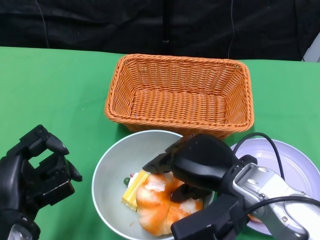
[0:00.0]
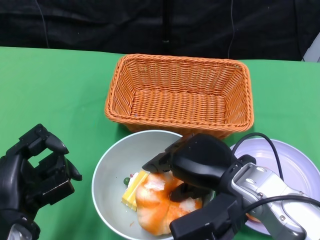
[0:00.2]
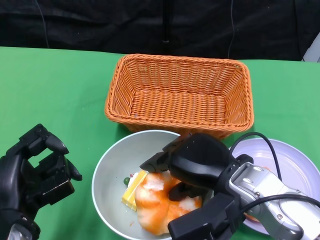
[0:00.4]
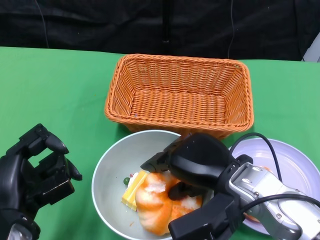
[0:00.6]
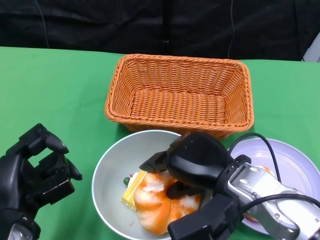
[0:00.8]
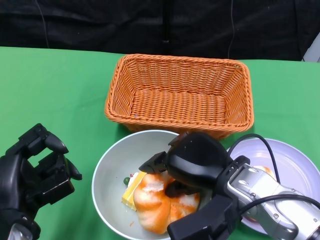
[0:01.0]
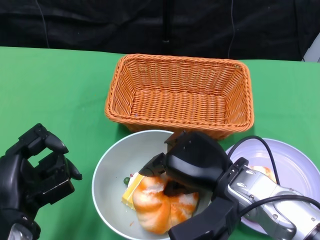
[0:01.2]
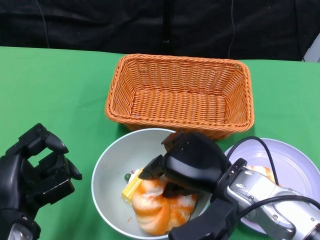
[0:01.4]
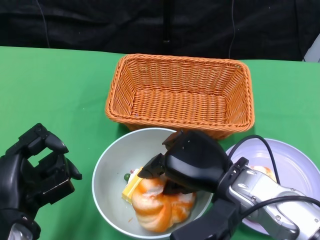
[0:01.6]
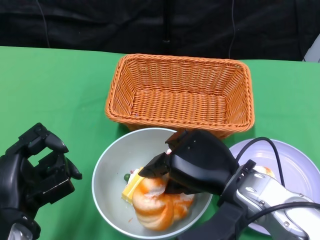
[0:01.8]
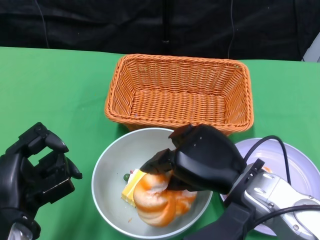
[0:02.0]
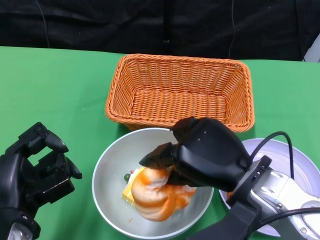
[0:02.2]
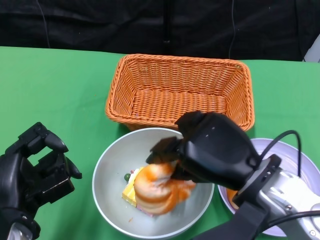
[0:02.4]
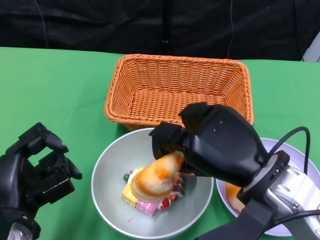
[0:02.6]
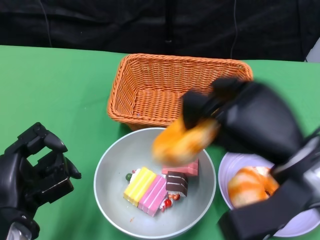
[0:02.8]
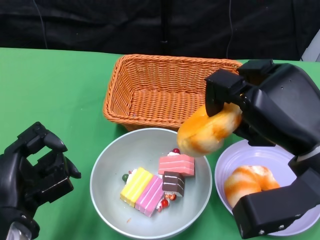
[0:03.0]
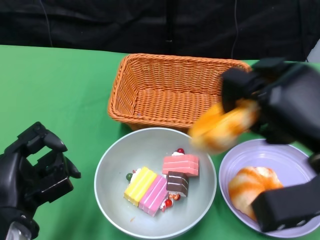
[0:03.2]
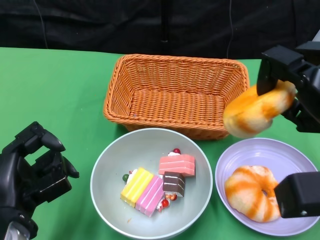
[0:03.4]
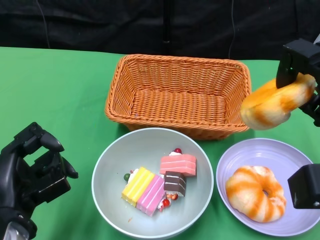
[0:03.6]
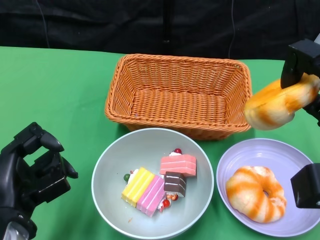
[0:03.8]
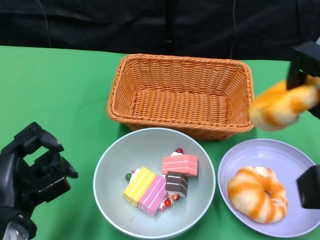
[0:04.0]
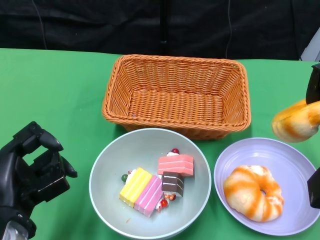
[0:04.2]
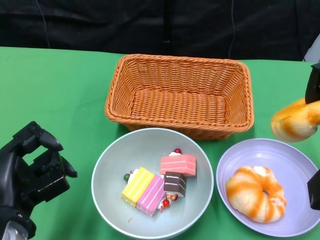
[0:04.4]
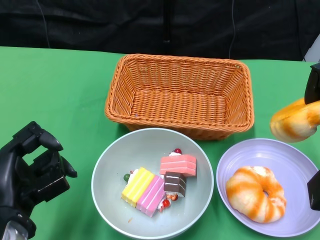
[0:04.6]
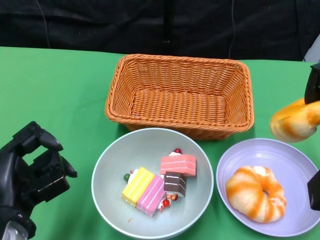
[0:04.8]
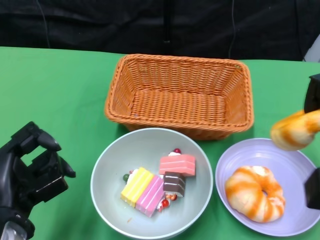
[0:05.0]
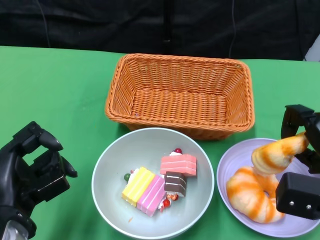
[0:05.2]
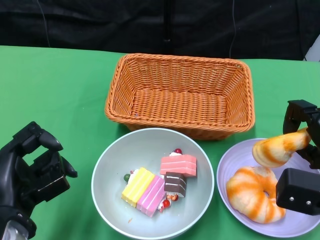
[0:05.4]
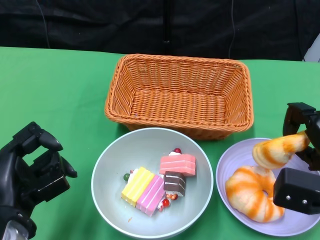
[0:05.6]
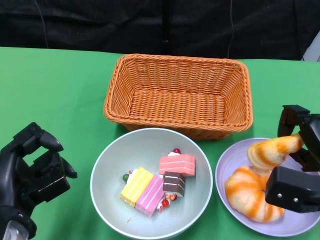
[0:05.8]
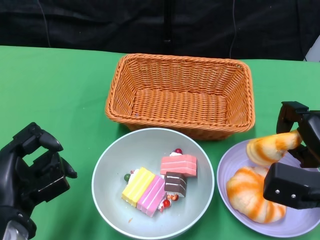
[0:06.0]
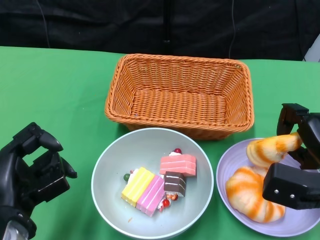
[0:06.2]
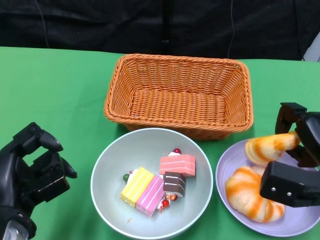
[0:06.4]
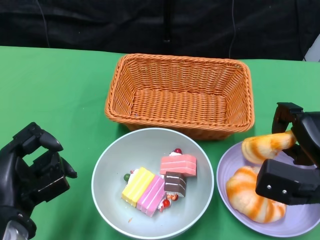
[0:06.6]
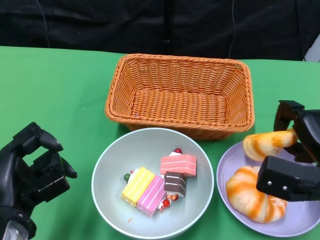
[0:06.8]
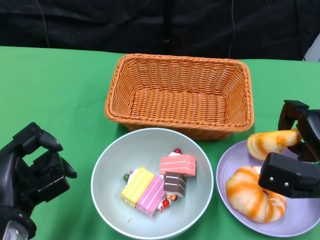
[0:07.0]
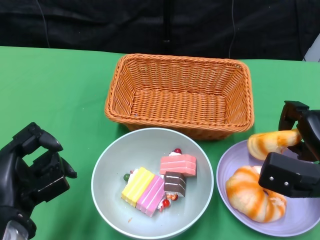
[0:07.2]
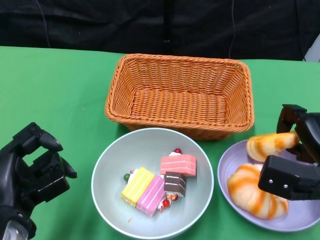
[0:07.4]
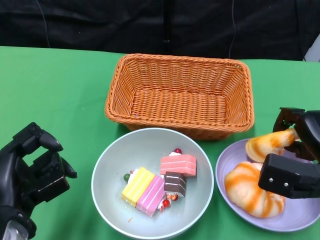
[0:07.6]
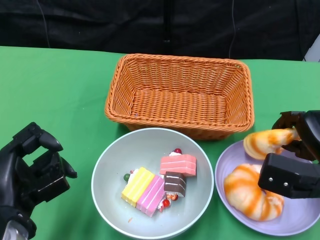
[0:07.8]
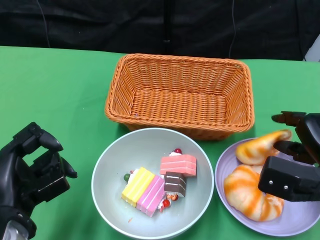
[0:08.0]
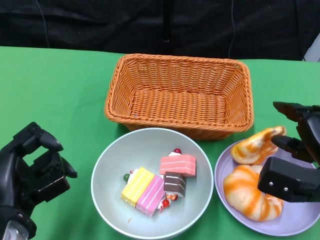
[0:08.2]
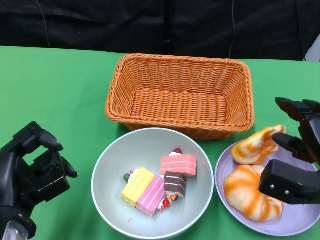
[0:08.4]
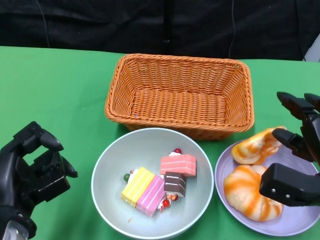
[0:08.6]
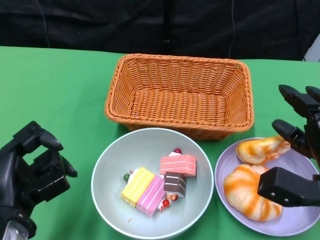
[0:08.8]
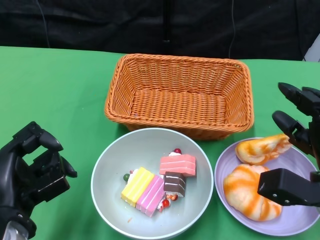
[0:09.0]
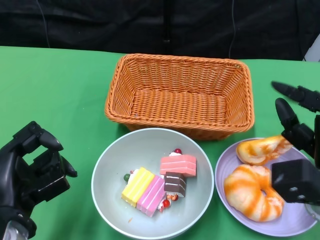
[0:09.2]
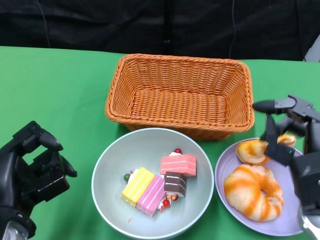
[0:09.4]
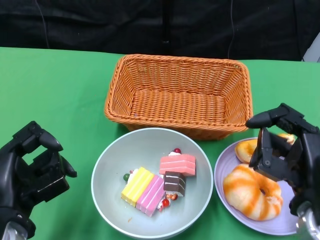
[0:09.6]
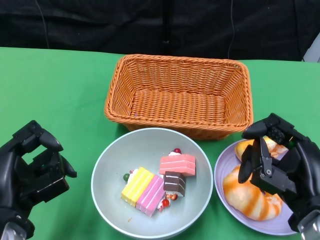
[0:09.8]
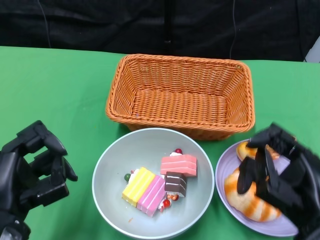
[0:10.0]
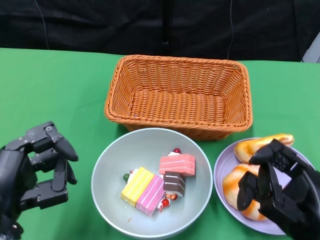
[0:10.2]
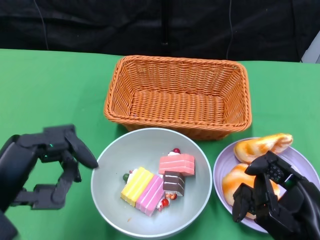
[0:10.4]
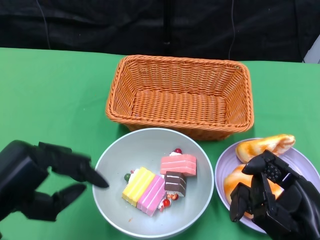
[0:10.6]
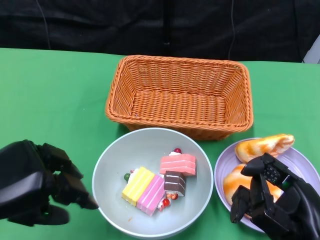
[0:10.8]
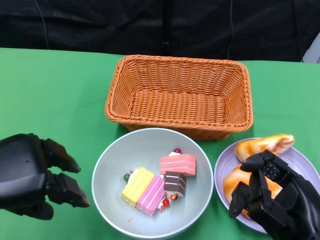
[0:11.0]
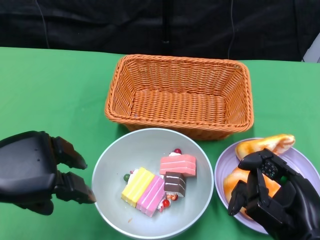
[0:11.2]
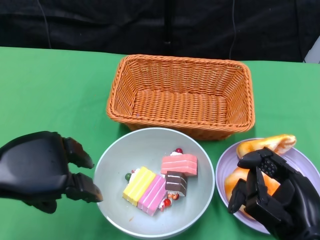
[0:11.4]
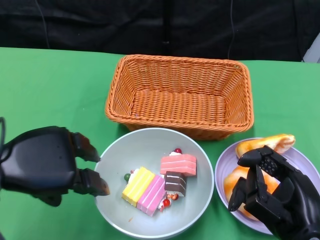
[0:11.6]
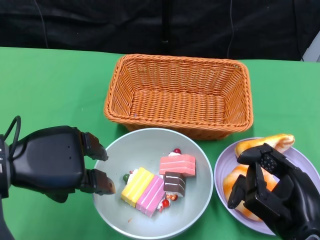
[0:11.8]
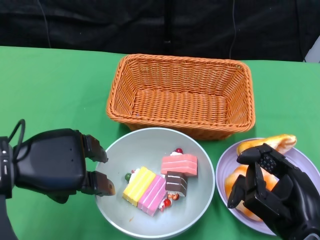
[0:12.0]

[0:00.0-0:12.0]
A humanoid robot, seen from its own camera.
Step, 0:00.0 to 0:08.8: Pick up the bread with the right gripper and place it on the plate.
0:00.0 to 0:01.6: The hands stay close to where they were, moving slightly.
0:01.6 to 0:03.0: The right hand travels to the right and upward by roughly 10 cm.
0:03.0 to 0:04.4: The right hand travels to the right by approximately 10 cm.
0:04.4 to 0:06.0: The right hand is displaced downward by approximately 10 cm.
0:06.0 to 0:07.6: The hands make only small movements.
0:09.0 to 0:10.4: The right hand heads backward, covering roughly 10 cm.
0:10.4 to 0:12.0: The left hand goes about 10 cm forward.

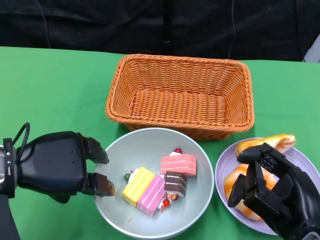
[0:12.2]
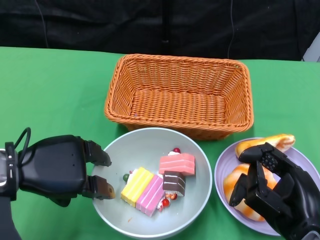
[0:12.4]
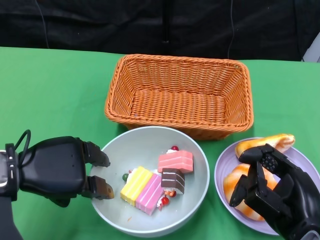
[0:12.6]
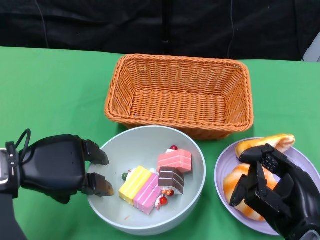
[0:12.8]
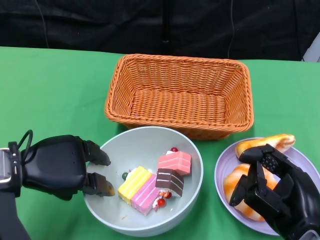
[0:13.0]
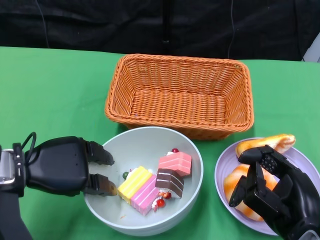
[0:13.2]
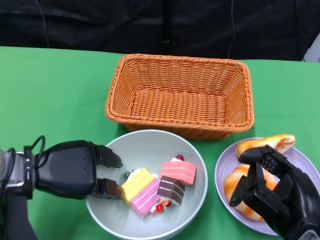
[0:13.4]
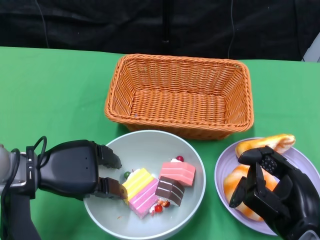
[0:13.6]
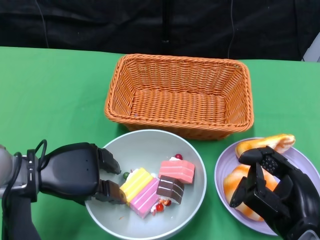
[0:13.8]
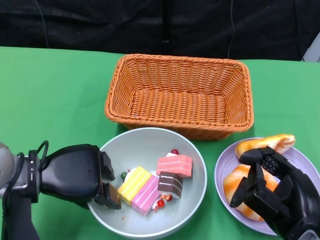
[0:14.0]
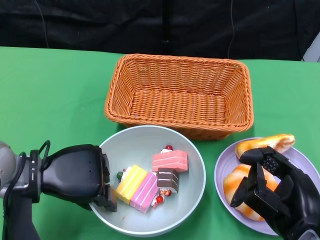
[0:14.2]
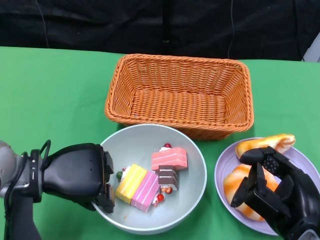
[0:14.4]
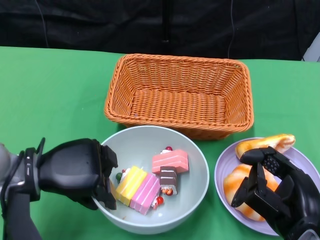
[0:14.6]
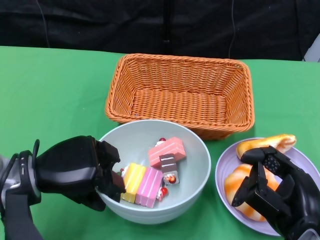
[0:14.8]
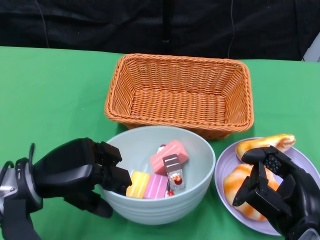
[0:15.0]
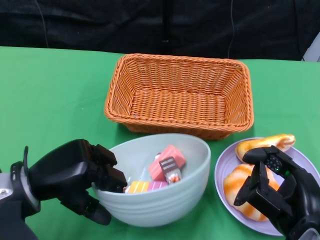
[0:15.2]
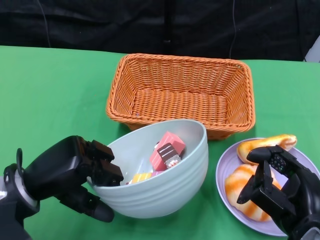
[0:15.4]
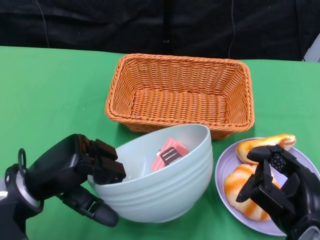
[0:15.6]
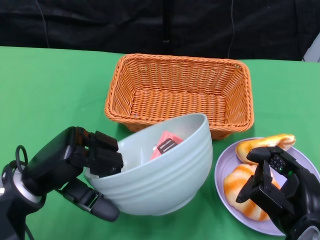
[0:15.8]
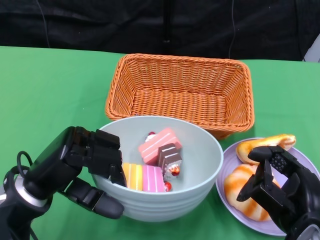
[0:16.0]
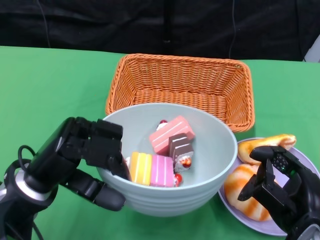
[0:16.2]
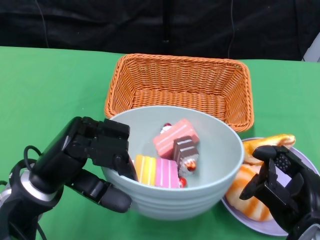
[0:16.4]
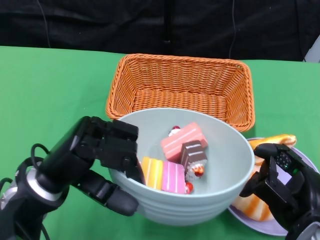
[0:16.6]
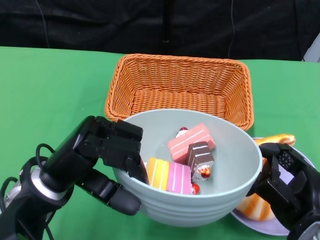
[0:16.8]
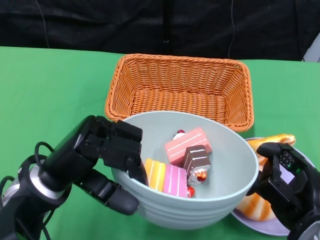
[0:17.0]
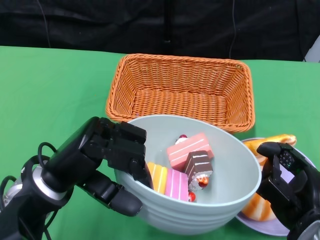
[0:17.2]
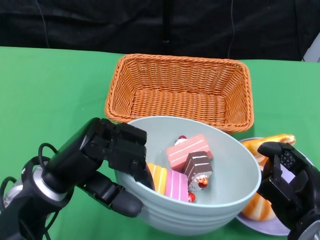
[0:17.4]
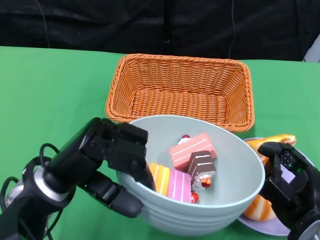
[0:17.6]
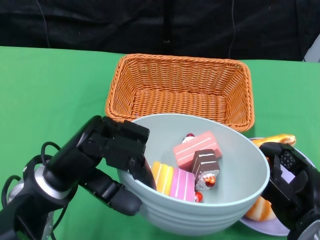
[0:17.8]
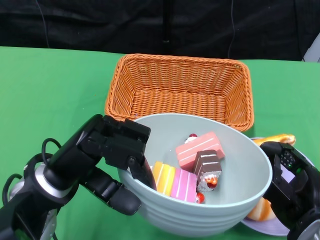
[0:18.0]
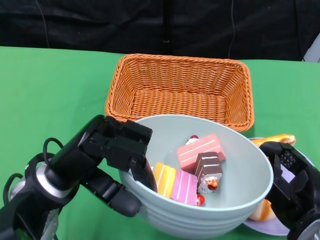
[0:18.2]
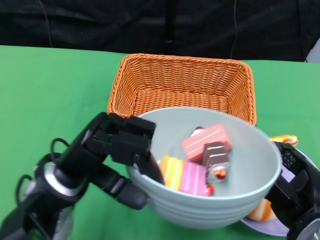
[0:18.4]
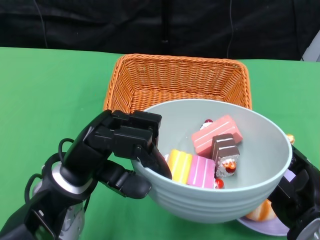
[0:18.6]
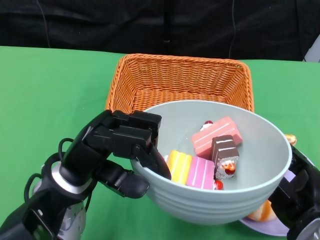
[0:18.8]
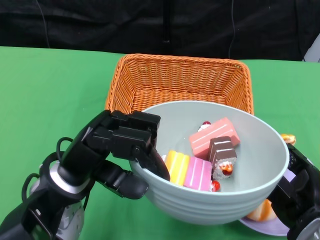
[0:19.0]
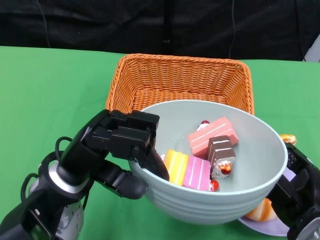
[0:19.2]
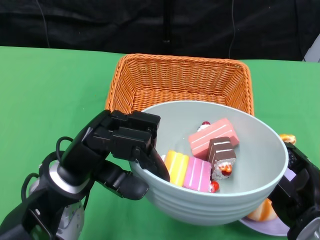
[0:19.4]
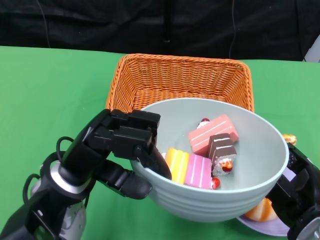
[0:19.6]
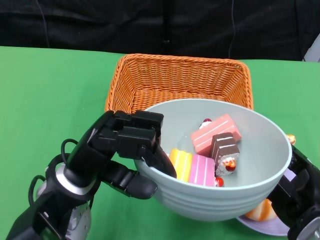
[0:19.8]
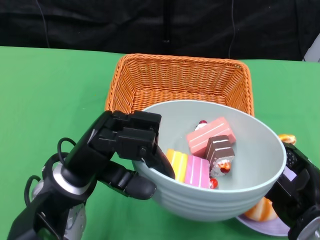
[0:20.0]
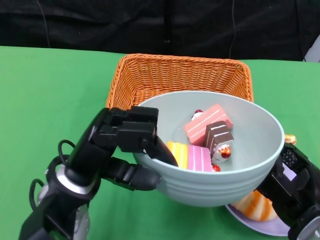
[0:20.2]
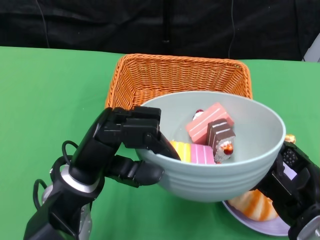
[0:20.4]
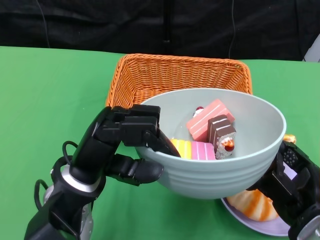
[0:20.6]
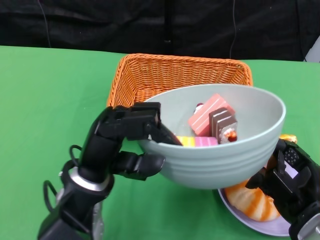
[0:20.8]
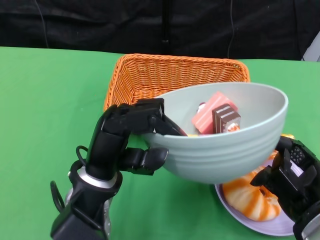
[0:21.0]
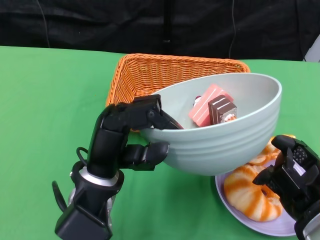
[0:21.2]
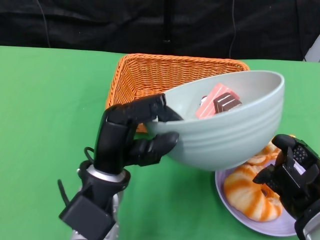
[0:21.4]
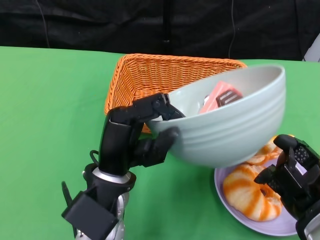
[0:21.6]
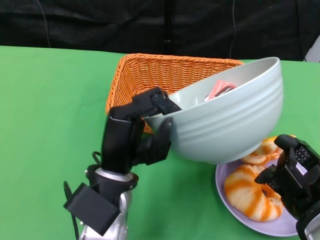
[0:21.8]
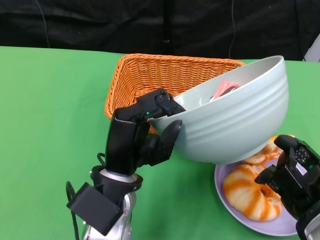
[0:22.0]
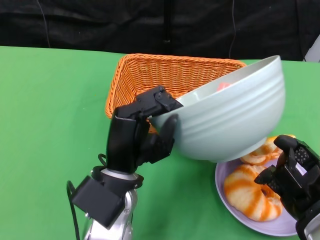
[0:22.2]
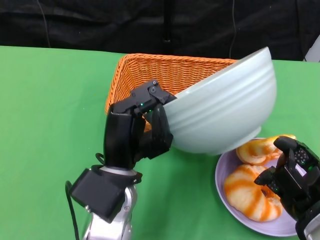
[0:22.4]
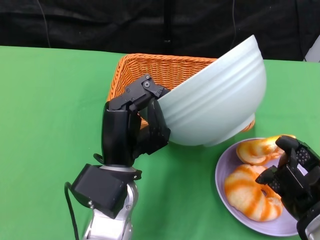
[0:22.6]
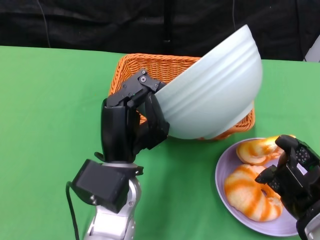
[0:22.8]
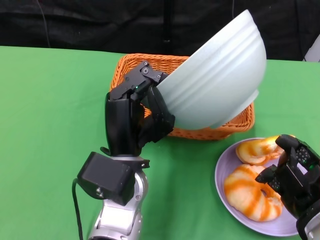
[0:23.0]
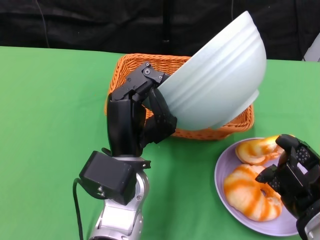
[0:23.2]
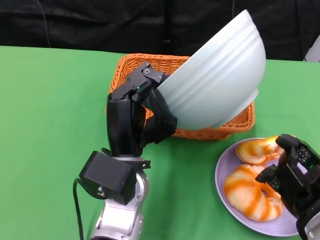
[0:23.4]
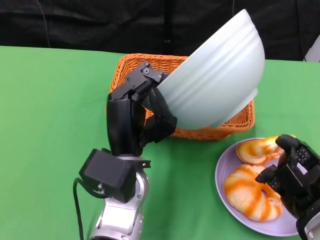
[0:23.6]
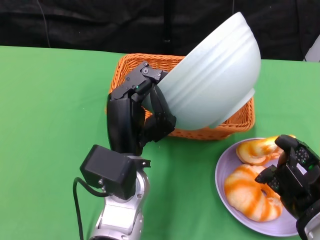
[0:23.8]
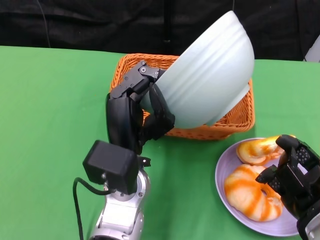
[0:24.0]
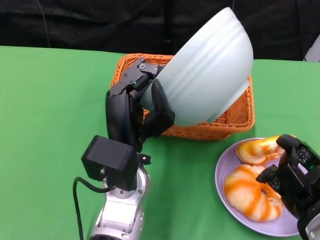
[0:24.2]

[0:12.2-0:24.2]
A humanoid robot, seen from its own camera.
Step, 0:12.2 to 0:14.4: Grasp the bowl with the left gripper.
0:12.2 to 0:13.8: The left hand shifts roughly 5 cm downward.
0:15.2 to 0:16.6: The left hand moves roughly 5 cm.
